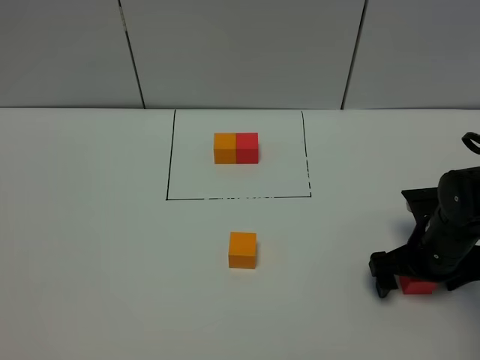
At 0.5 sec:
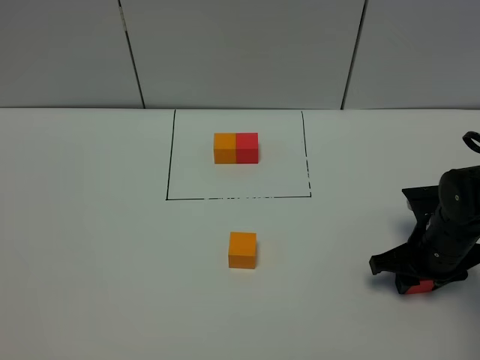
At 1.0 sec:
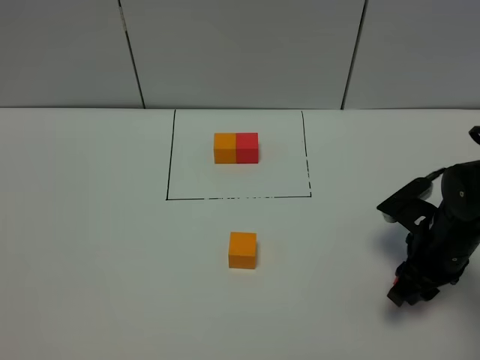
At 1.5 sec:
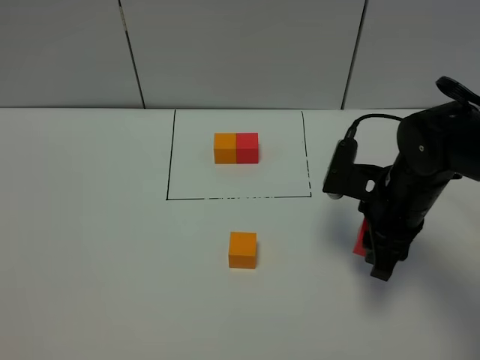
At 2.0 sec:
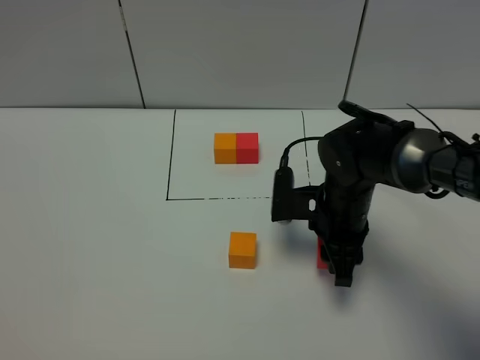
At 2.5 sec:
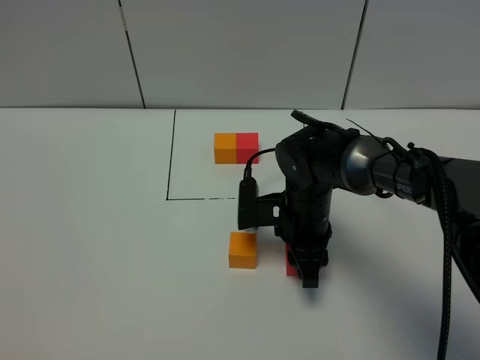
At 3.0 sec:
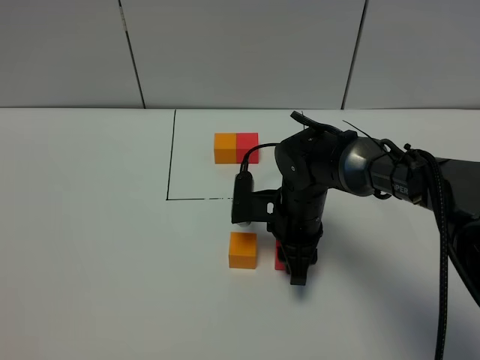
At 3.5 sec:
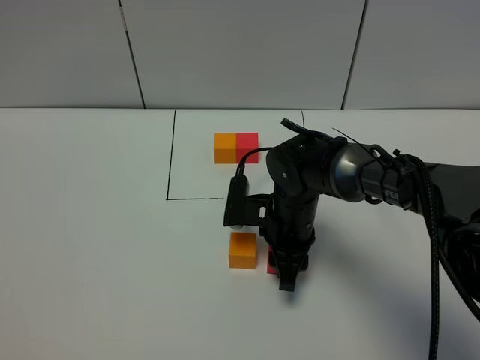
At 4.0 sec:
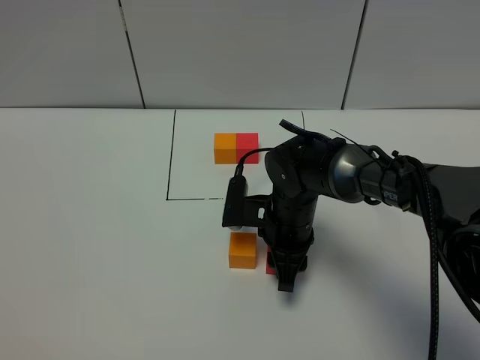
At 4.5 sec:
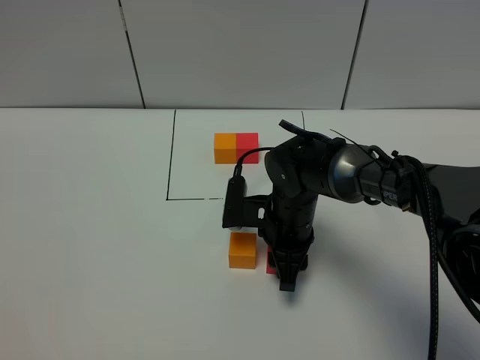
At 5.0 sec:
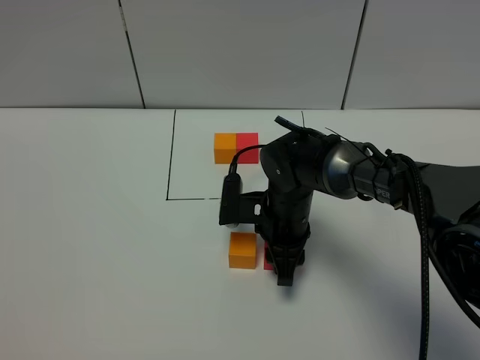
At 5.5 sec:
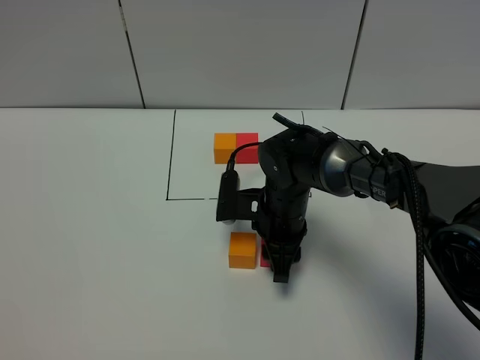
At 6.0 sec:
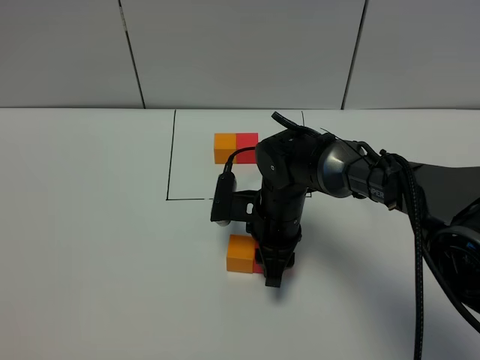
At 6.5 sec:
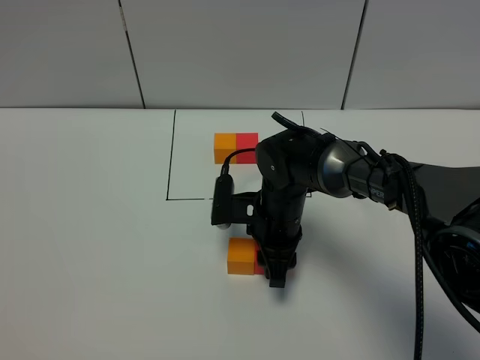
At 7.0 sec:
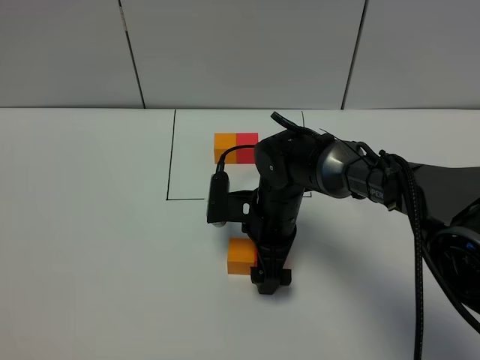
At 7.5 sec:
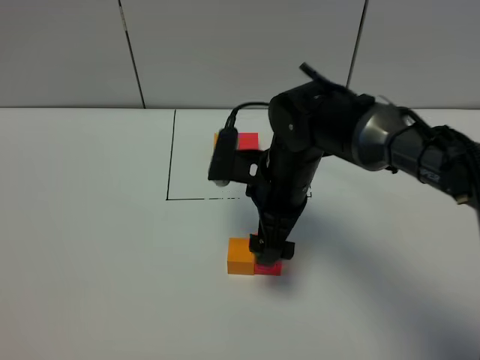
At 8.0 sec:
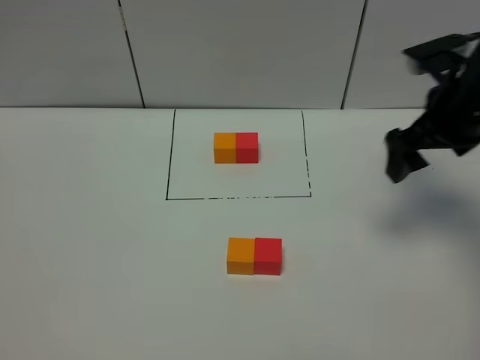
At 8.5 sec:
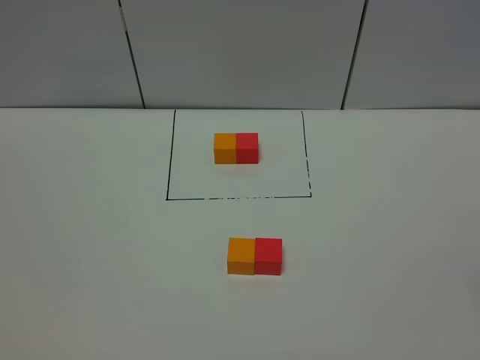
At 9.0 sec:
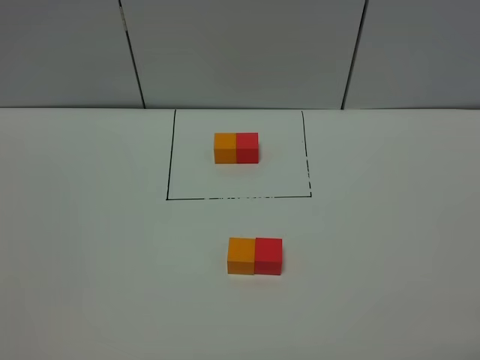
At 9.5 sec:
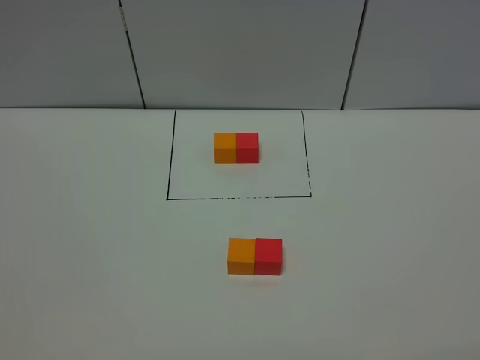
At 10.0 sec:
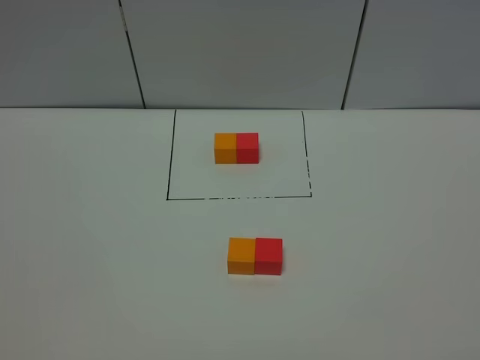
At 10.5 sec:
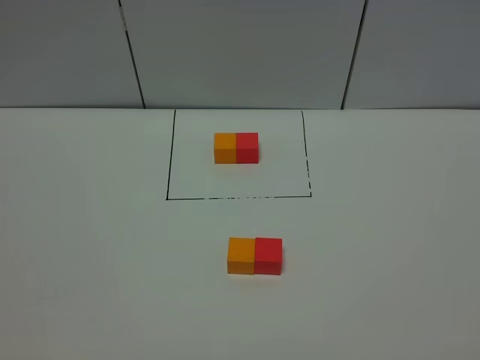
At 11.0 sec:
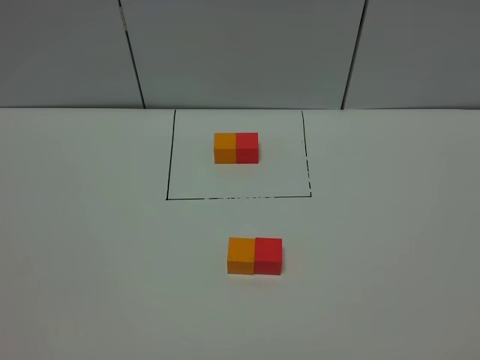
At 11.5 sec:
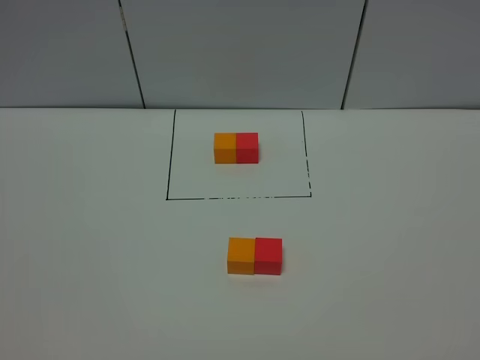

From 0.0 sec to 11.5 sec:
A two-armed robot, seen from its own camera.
Task of the whole recording: According to the building block template in front, assemble the scattered blocks together.
Step, from 0.0 sec to 7.0 sec: Put the red cube on the right of the orange cube.
From 0.0 sec to 2.0 sec: The right gripper shifts about 15 cm to the left, and closes up.
From 2.0 sec to 4.0 sec: The right gripper shifts about 5 cm to the left.
From 4.0 sec to 6.0 sec: There are only small adjustments of the grippers.
From 6.0 sec to 7.5 sec: The right gripper travels upward by approximately 10 cm, and opens its fingers.
From 7.5 sec to 9.5 sec: The right gripper travels backward and to the right by roughly 40 cm.
